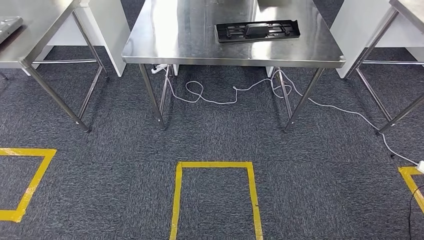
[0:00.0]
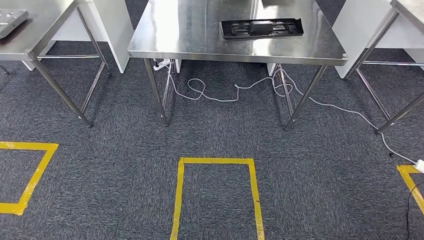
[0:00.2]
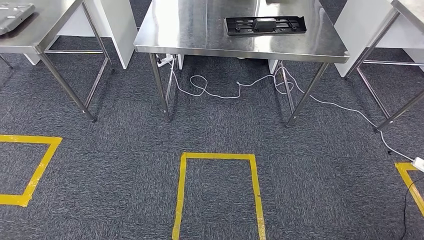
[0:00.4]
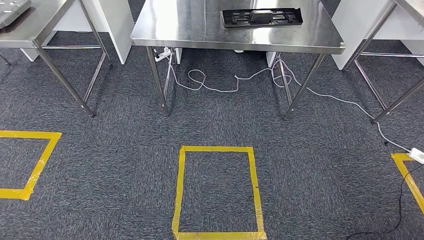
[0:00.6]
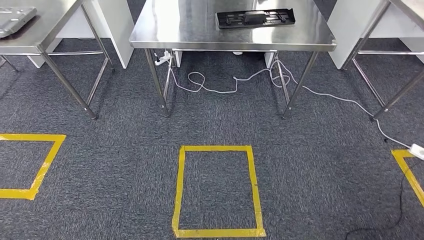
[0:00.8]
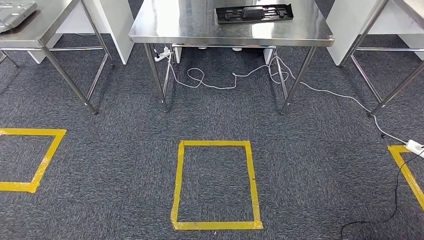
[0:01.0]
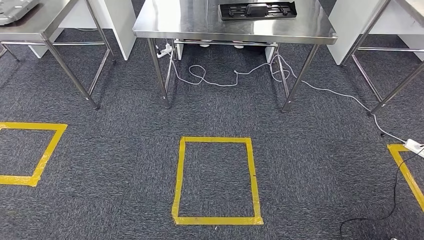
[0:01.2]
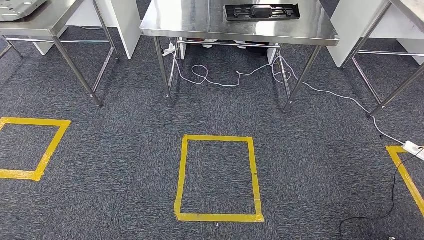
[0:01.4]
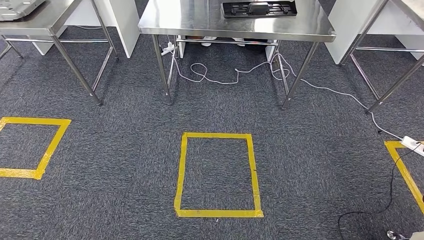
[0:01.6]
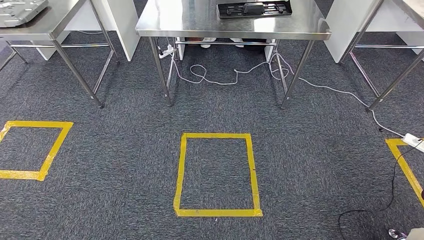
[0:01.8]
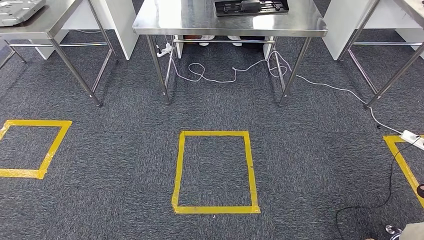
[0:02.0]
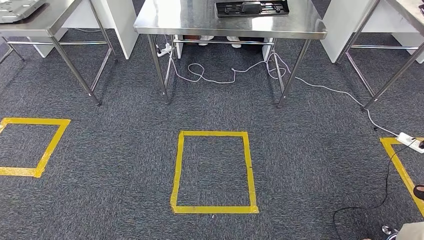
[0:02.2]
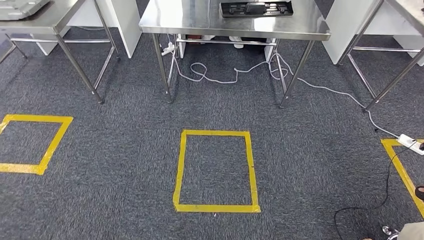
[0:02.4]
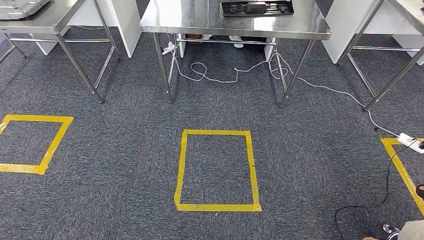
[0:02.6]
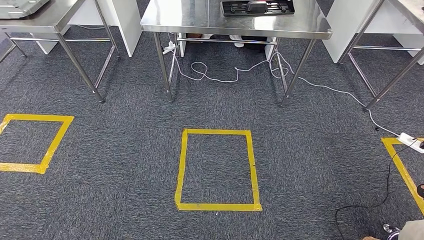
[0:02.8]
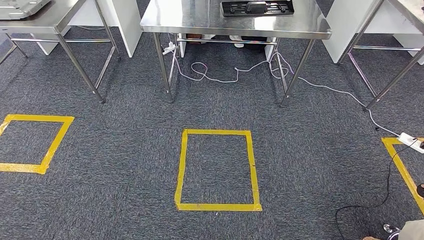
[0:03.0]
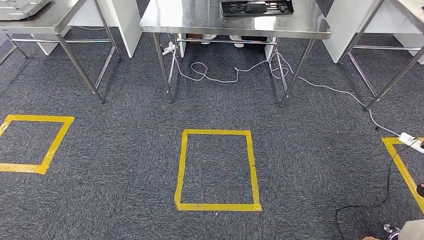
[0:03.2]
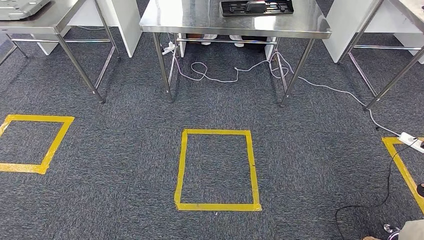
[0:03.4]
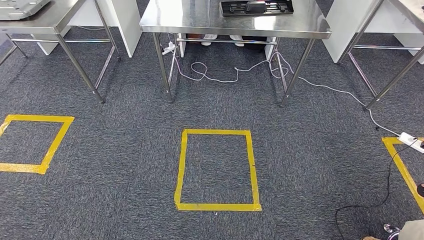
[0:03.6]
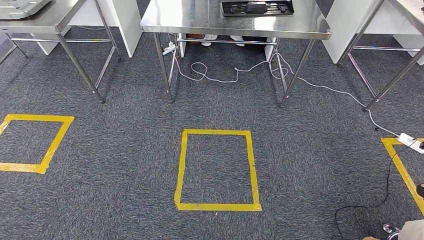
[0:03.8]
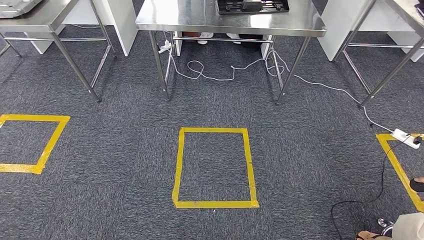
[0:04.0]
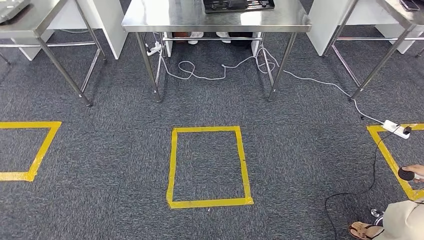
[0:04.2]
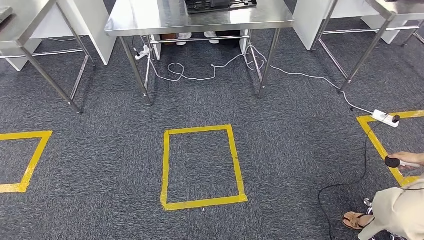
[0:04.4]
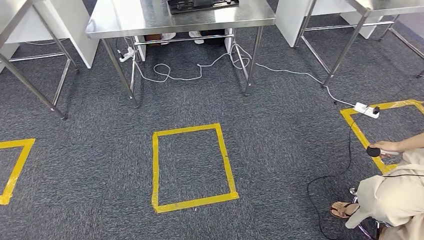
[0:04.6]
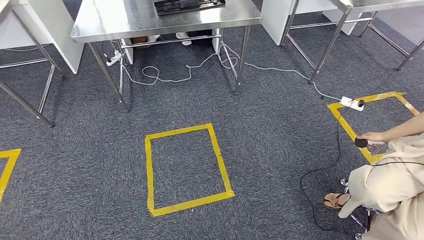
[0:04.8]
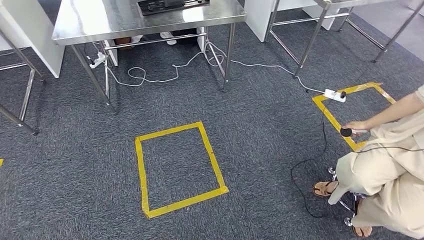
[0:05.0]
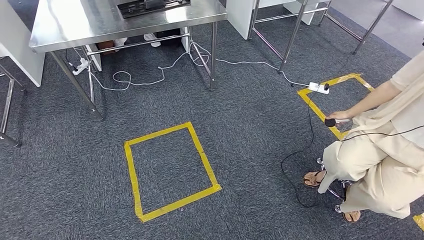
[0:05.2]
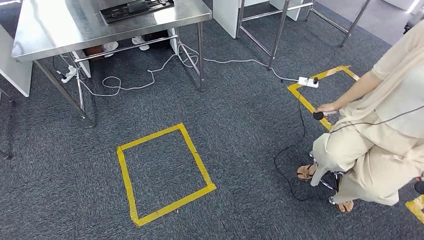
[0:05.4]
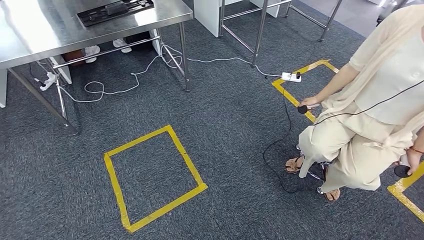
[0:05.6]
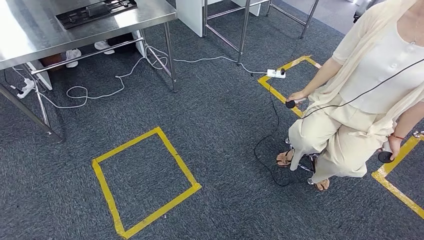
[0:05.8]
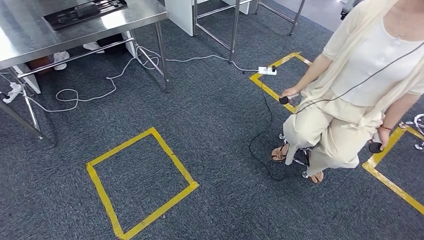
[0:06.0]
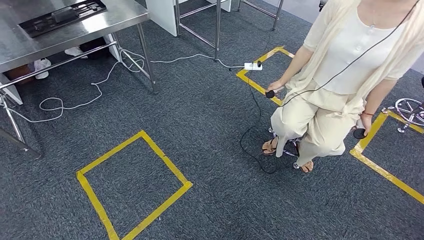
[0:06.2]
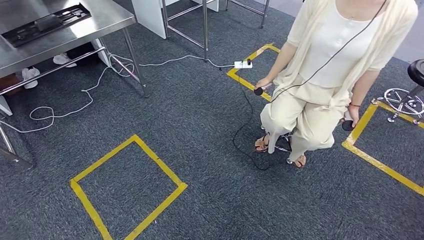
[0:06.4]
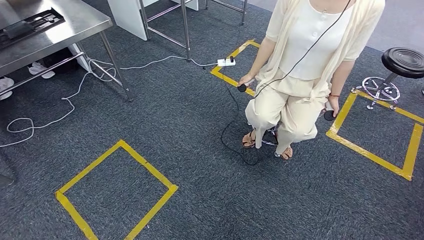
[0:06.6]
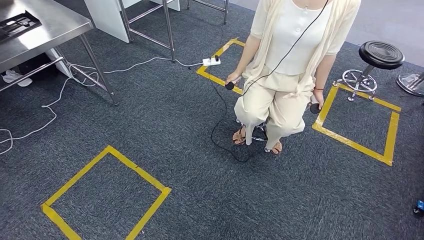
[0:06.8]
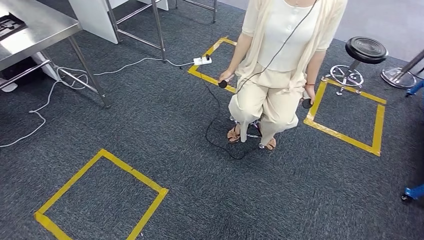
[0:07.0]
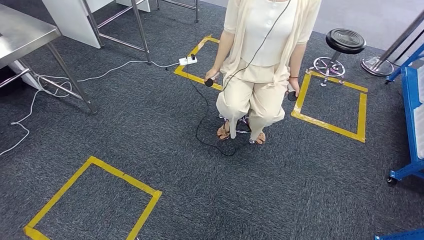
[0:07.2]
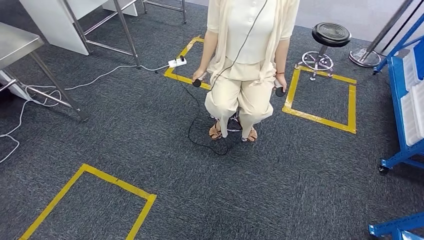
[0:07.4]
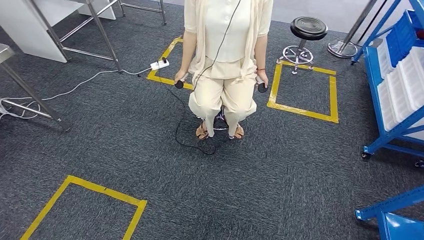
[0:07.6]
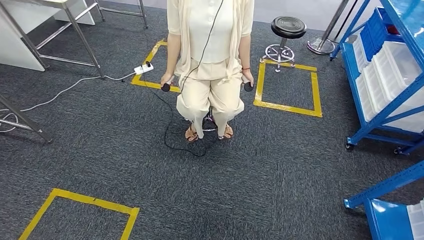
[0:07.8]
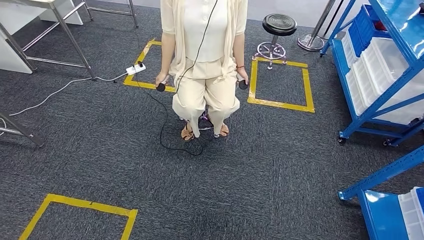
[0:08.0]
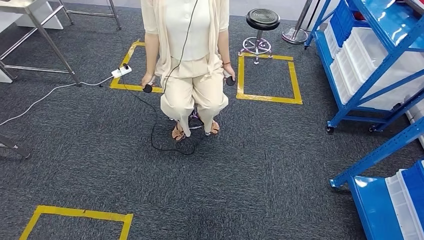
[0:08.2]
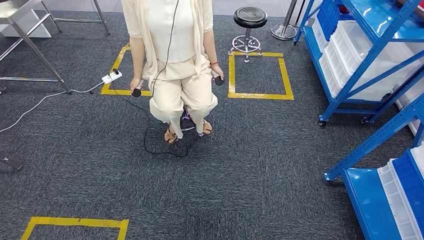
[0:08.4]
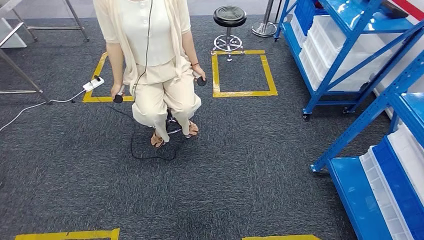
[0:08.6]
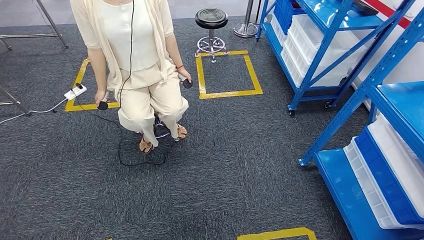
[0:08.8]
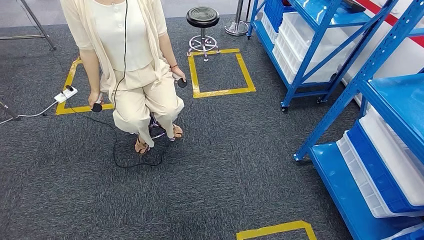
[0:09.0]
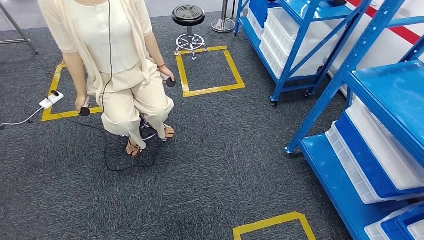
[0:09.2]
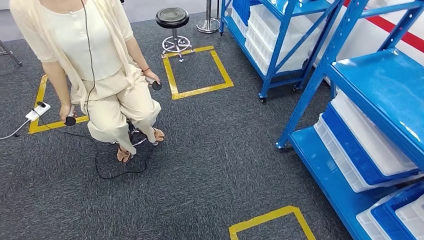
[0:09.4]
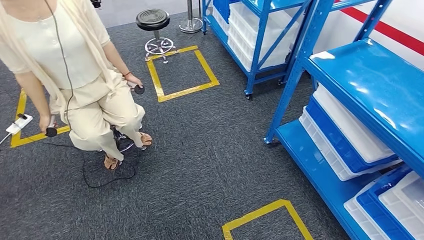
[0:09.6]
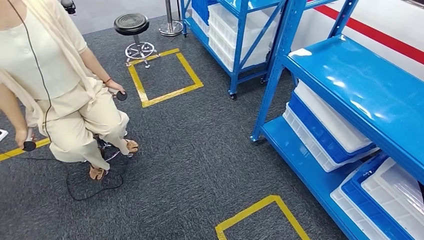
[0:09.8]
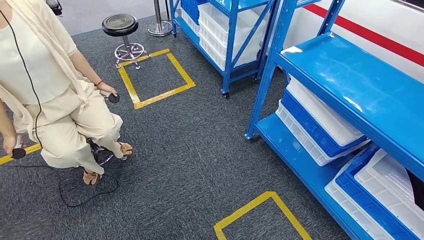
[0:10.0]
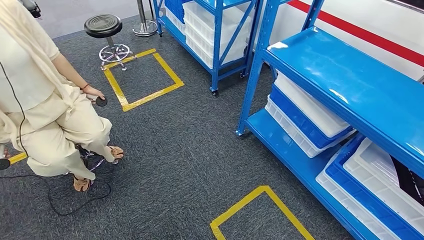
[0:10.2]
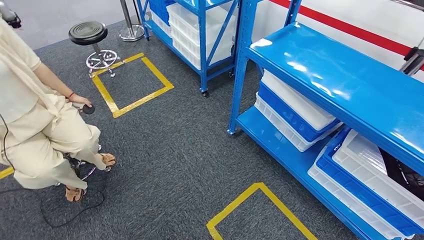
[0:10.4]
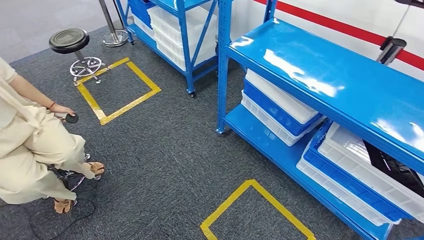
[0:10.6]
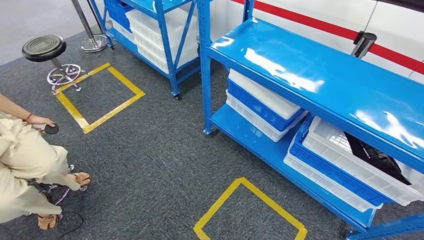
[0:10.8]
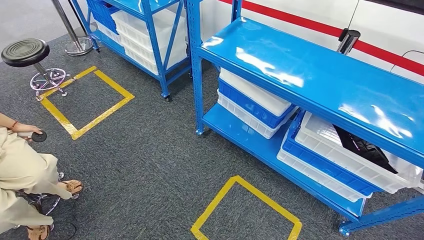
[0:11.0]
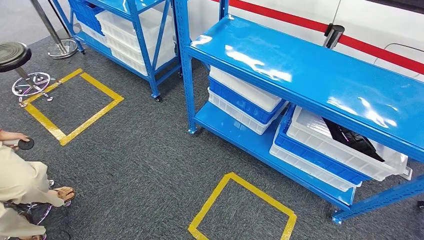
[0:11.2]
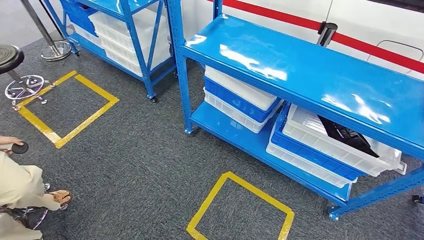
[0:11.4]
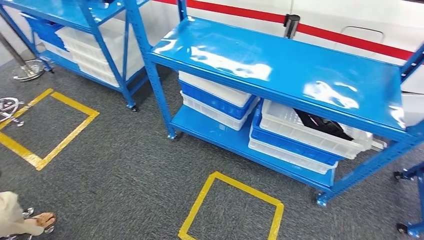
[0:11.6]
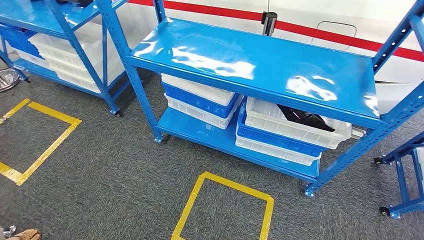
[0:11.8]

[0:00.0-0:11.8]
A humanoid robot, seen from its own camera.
0:01.4 to 0:03.0: Both hands stay about where they are.

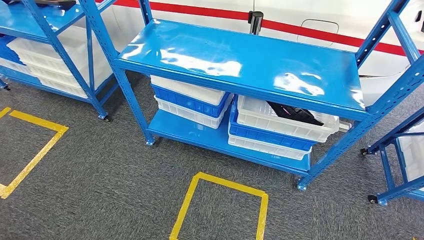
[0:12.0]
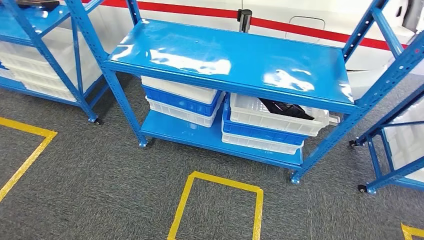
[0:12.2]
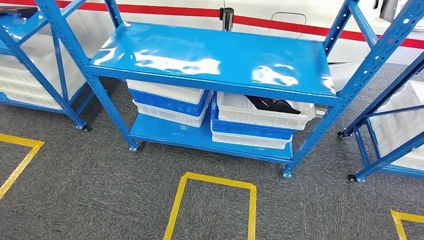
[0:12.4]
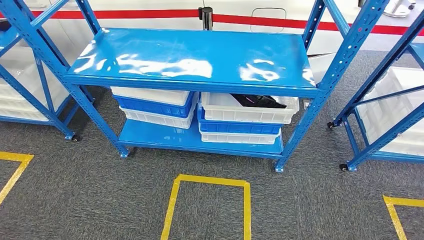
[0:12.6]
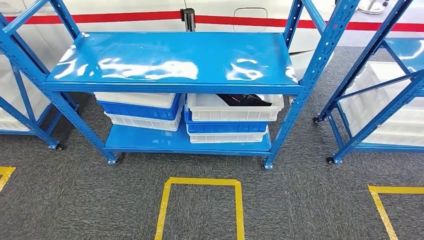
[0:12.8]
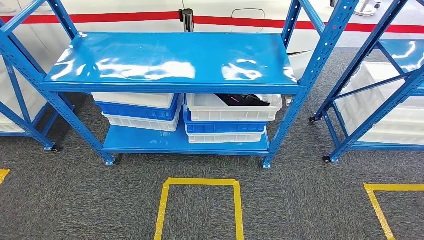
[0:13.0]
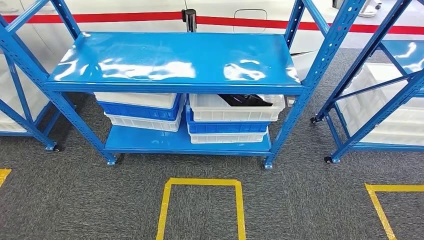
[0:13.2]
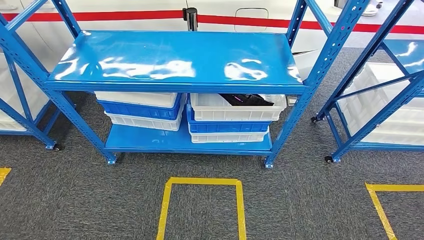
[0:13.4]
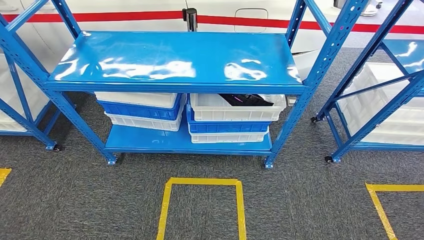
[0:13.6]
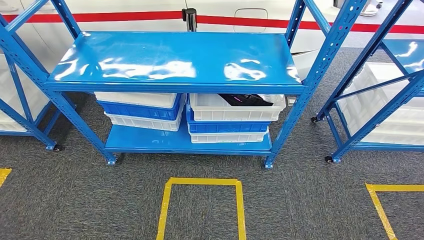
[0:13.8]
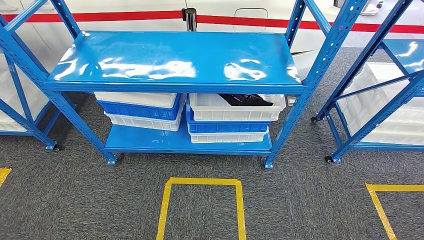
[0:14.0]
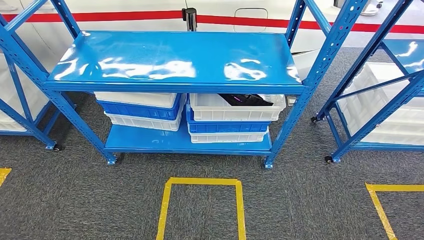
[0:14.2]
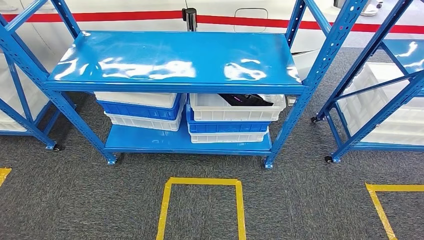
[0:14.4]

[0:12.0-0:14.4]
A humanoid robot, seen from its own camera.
Step, 0:12.0 to 0:14.4: Move to the initial position of the shelf.
0:13.2 to 0:14.4: The two hands keep their place.

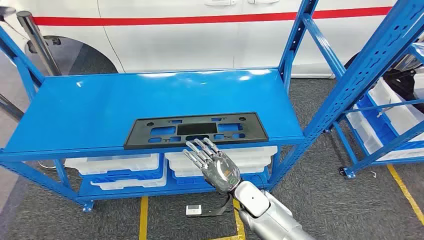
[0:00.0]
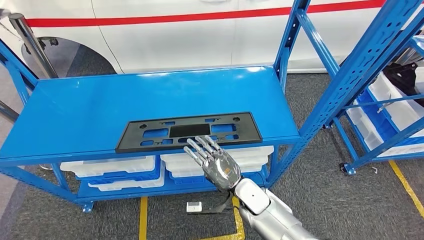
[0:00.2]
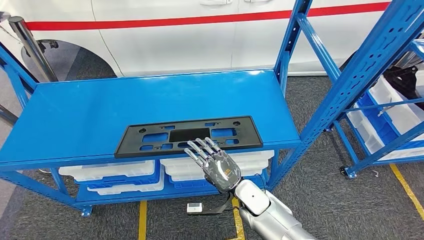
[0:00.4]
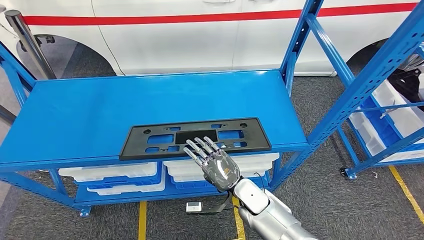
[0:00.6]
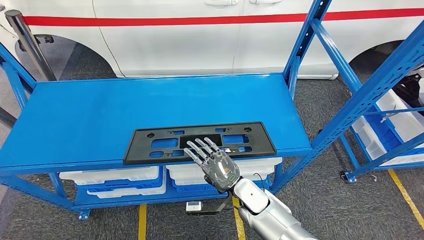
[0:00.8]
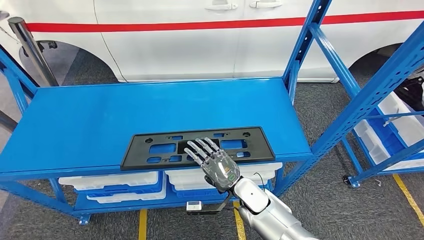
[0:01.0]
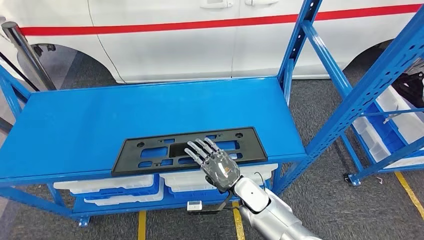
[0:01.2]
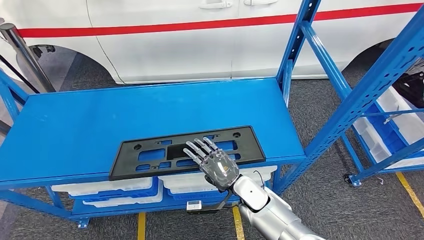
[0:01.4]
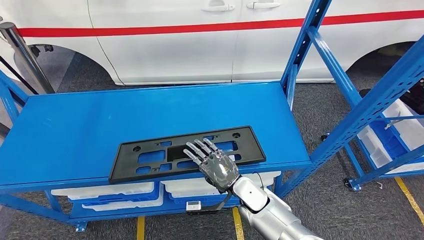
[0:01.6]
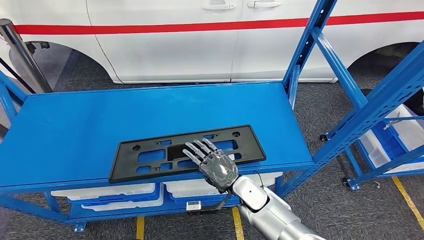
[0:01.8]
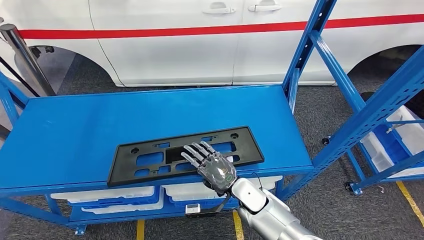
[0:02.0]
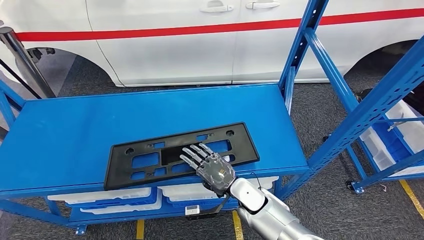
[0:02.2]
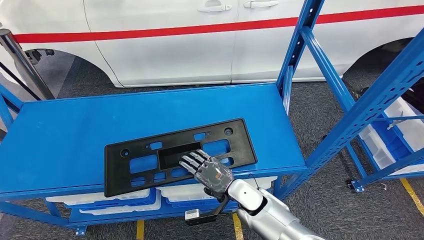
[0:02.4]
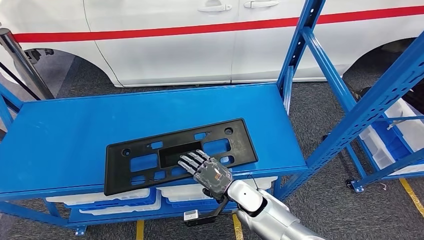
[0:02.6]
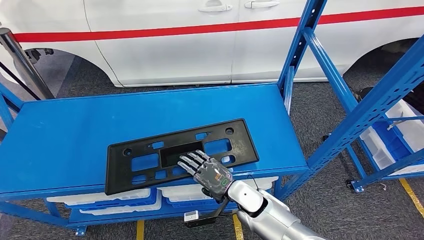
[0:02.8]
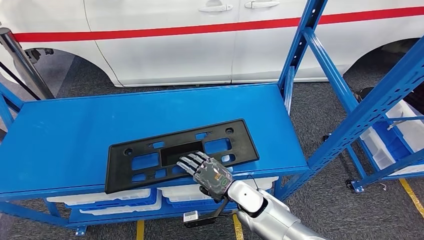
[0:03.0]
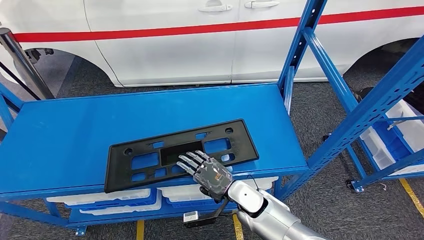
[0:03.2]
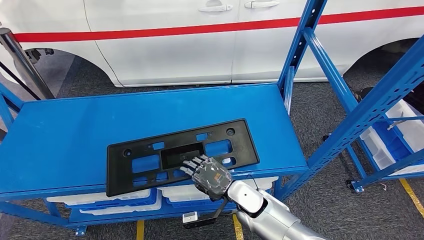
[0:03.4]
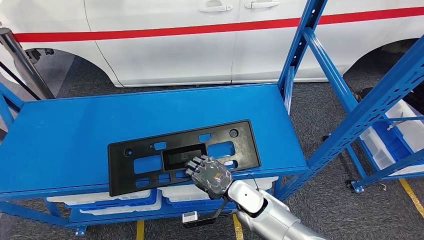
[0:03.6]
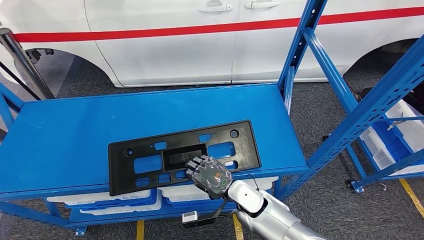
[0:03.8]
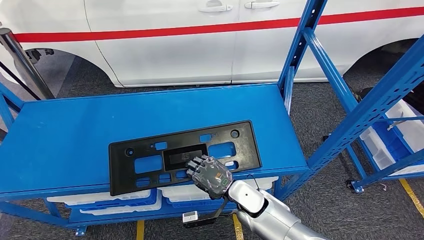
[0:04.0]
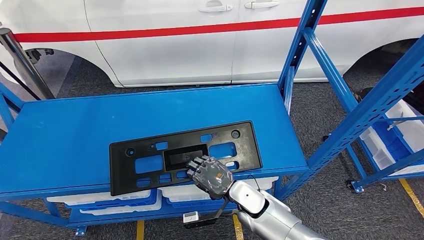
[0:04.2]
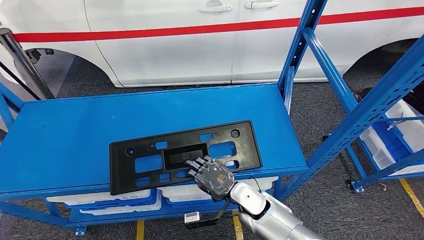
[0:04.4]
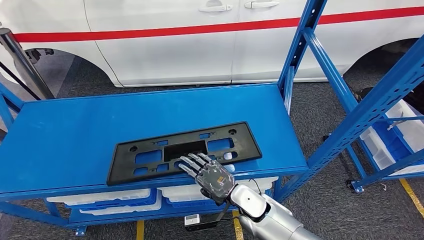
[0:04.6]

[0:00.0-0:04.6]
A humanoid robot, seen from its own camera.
0:03.0 to 0:04.6: Both hands stay put.
